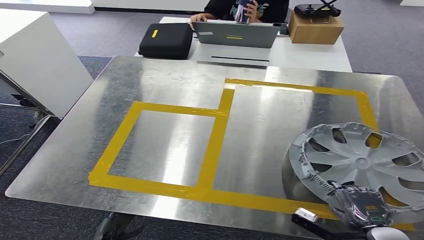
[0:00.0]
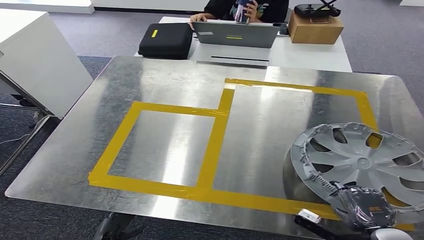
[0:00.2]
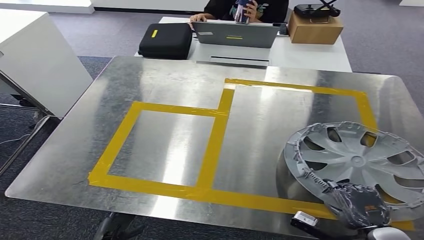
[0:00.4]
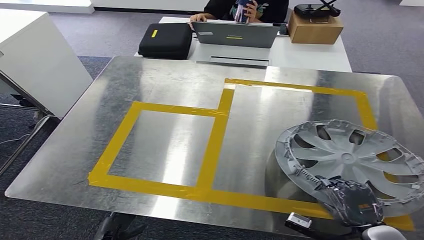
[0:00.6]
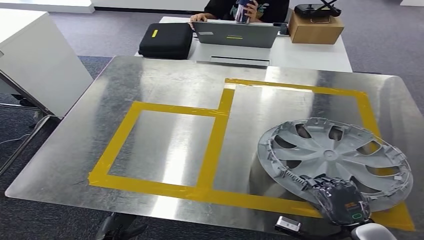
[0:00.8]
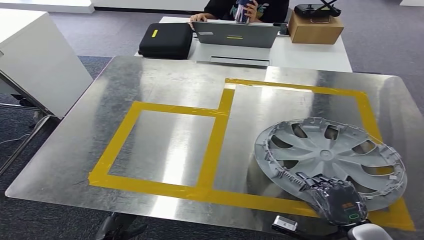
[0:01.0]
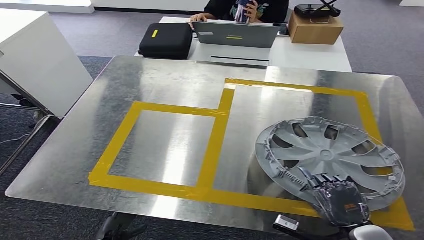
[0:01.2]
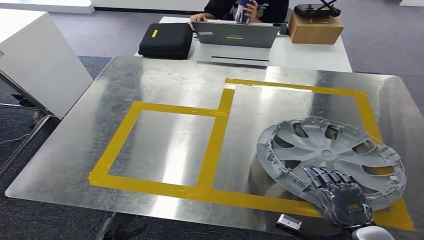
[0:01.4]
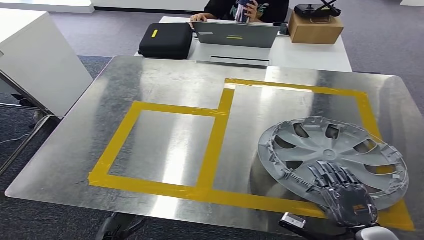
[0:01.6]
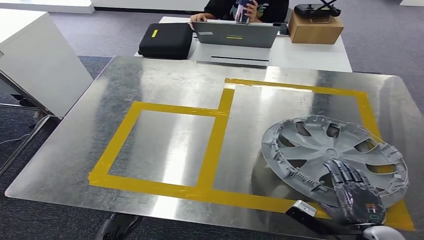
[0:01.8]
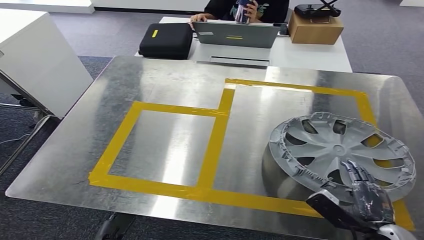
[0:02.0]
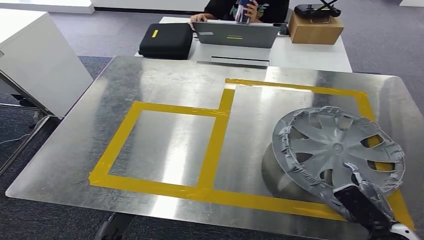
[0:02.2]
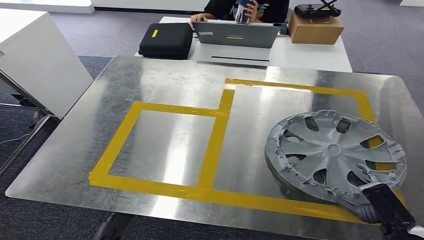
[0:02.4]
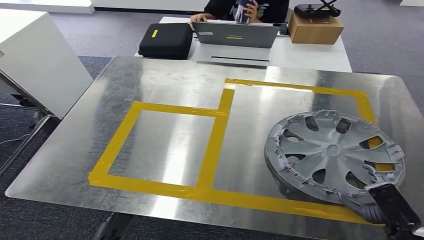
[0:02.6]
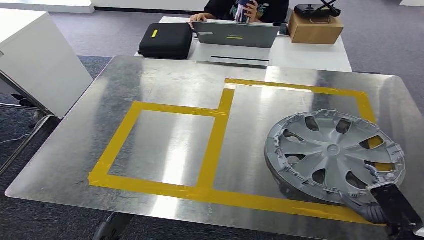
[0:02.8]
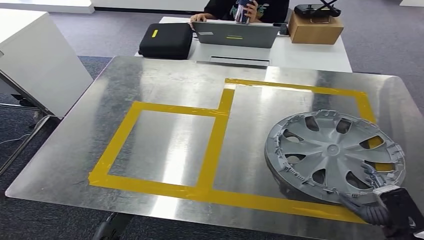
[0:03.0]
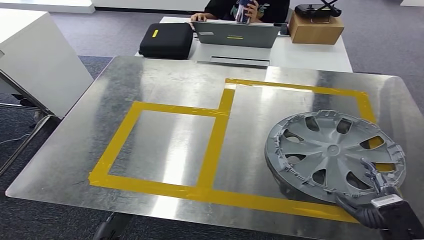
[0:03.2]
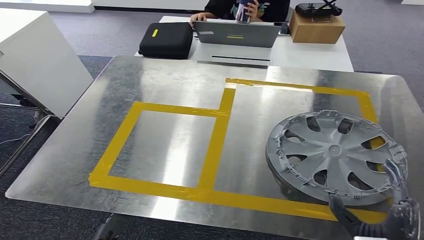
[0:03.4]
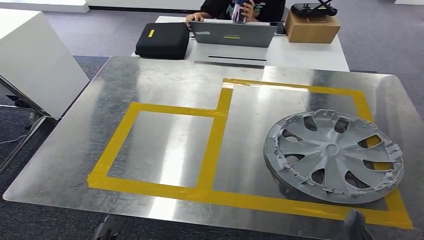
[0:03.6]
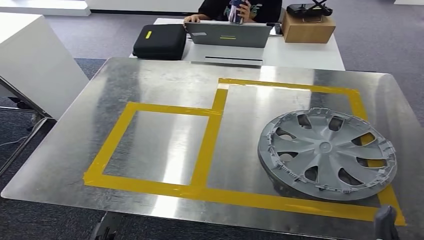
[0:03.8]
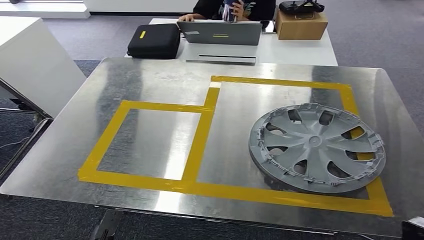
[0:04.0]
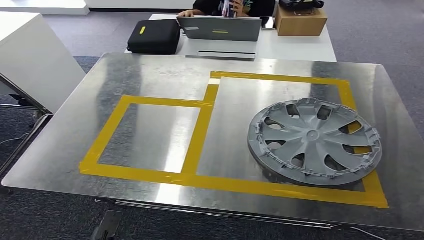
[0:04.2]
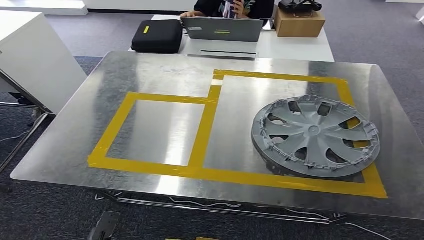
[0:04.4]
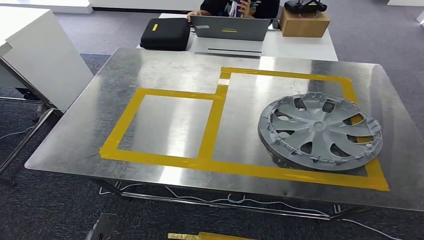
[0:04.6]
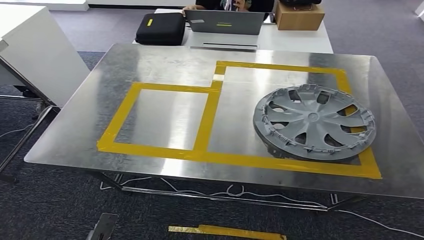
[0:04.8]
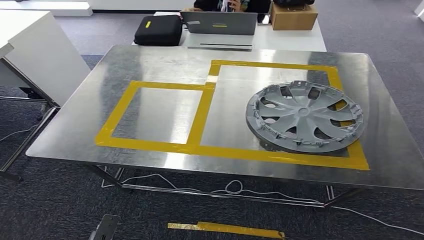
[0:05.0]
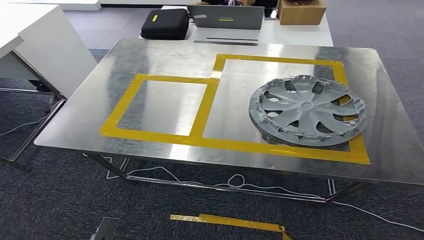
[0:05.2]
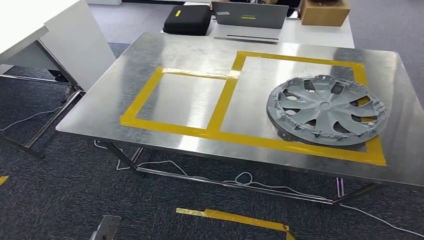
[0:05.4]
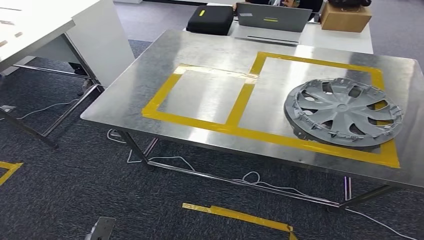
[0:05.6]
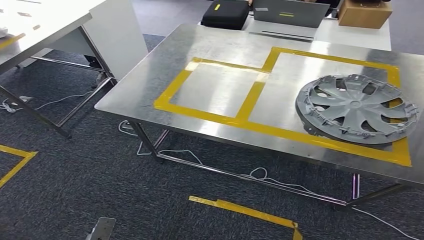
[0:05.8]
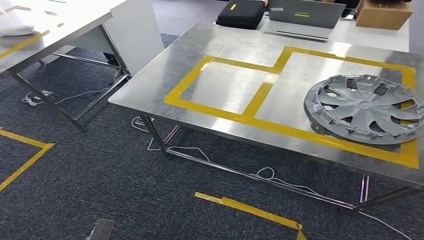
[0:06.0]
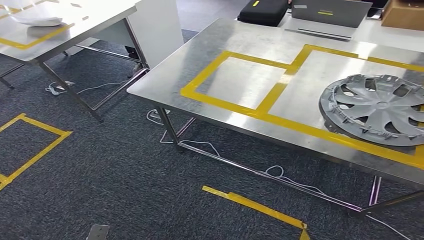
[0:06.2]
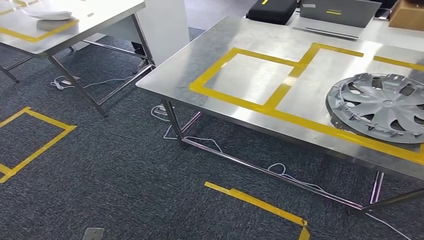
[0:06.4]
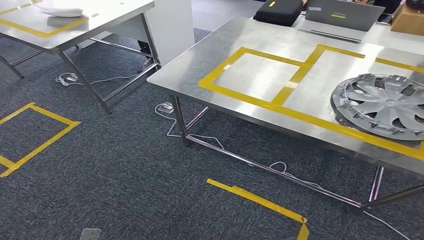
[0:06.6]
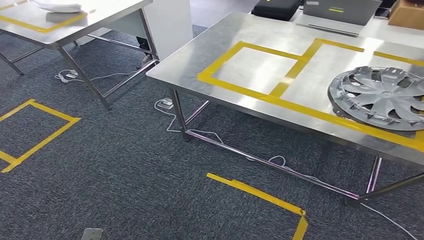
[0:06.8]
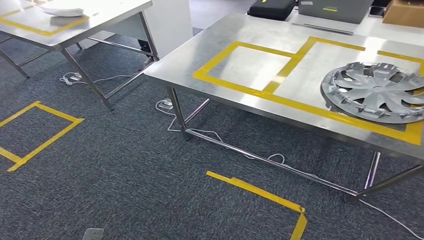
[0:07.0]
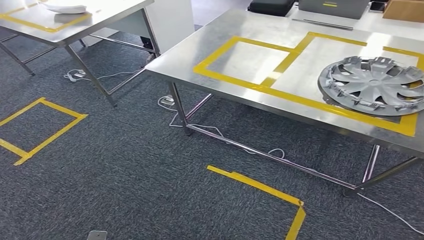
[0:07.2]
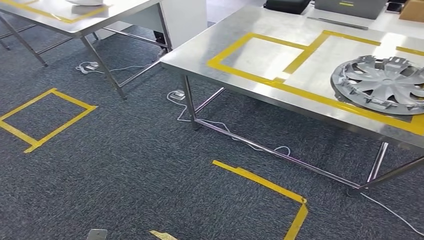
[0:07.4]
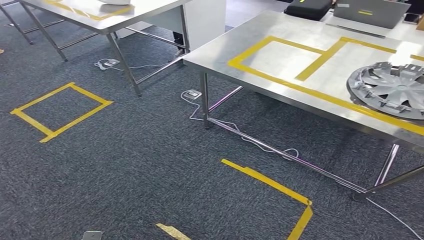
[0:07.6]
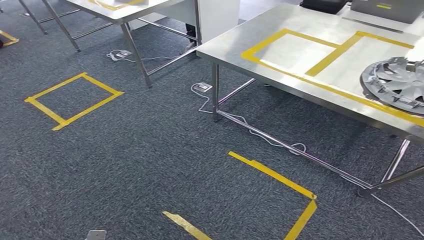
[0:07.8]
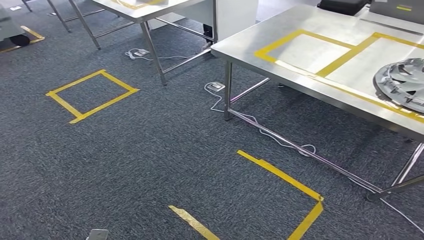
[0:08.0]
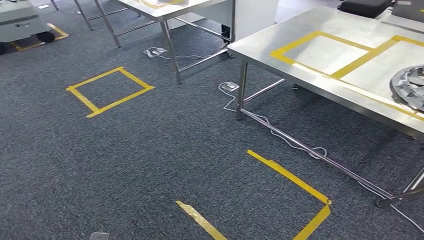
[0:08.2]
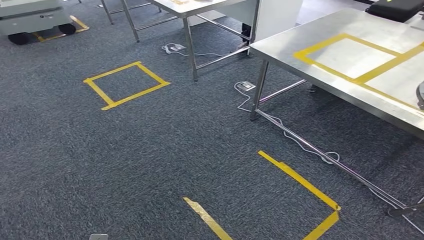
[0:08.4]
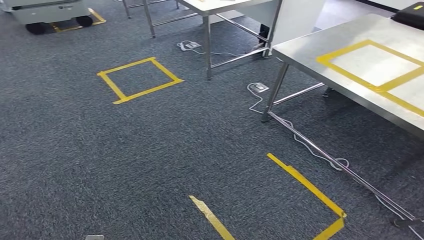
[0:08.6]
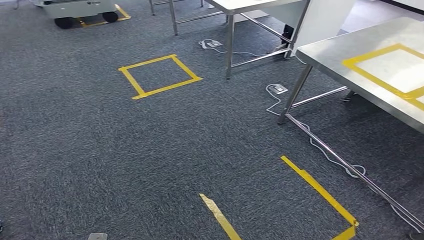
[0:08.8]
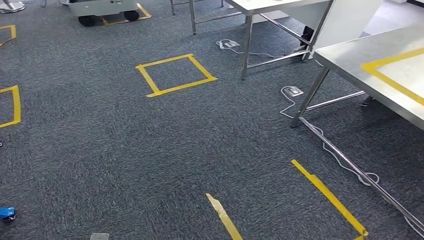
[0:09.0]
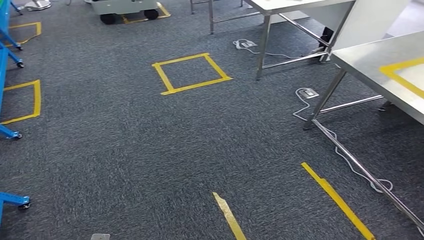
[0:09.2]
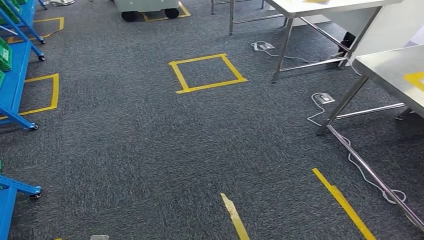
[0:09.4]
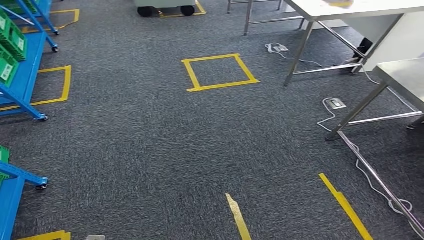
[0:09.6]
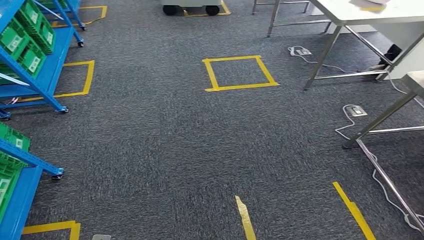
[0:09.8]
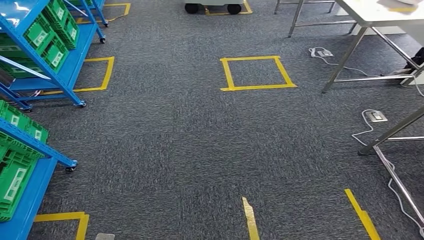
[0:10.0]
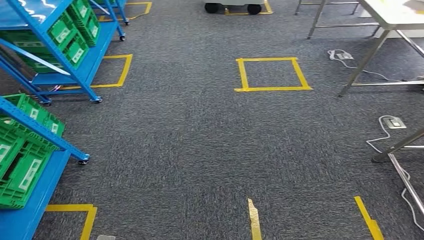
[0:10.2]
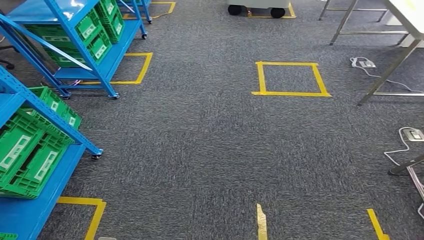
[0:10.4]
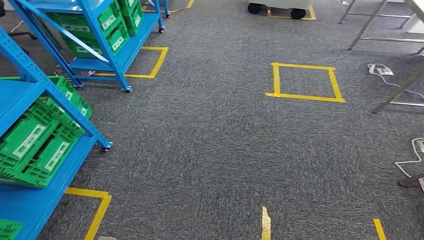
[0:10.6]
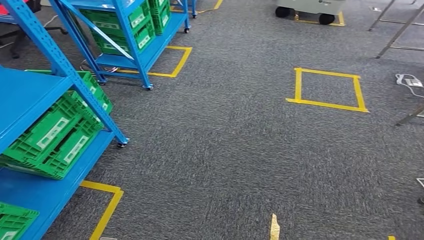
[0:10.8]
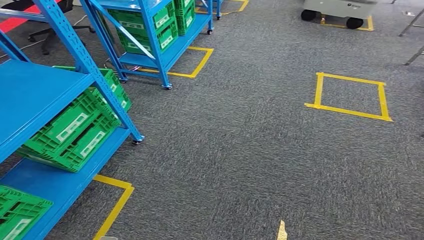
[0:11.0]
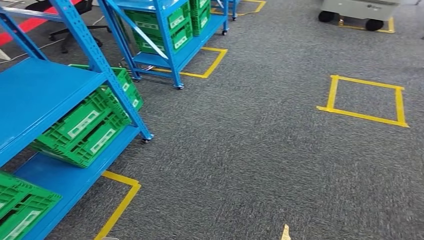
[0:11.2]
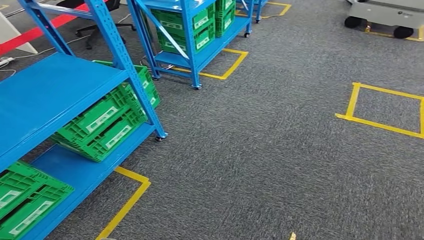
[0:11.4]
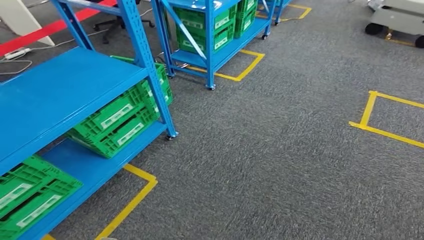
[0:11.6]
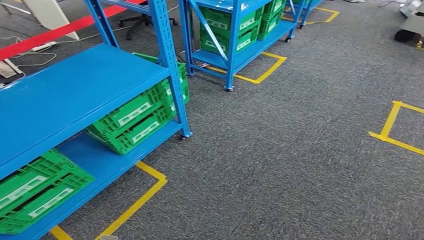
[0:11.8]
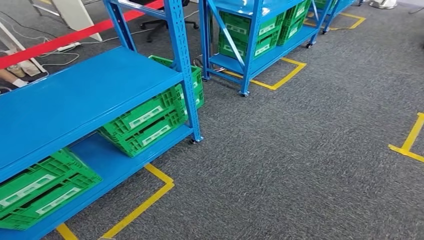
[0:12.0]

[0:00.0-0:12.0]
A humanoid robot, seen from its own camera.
Step, 0:00.0 to 0:05.8: Insert the small parts into the corresponding holes on the workbench.
0:01.6 to 0:03.0: The right hand heads to the right, covering about 5 cm.

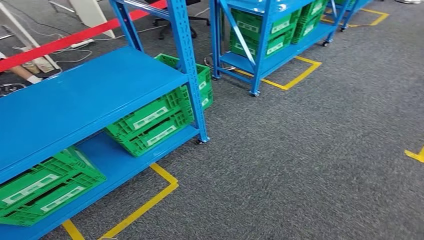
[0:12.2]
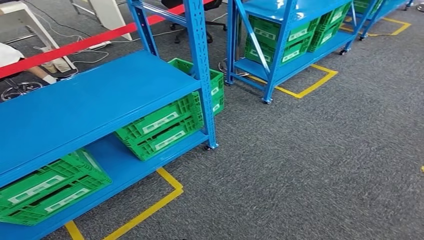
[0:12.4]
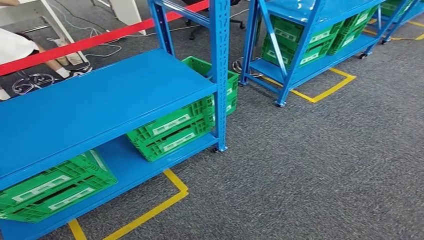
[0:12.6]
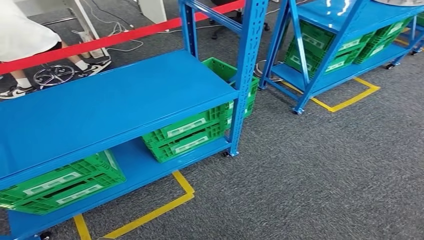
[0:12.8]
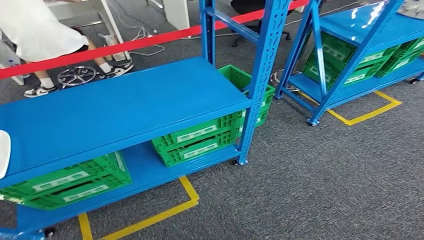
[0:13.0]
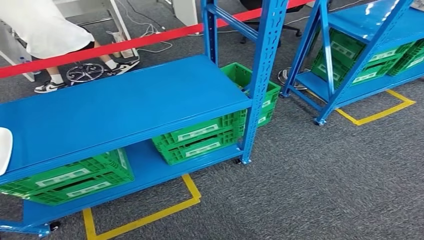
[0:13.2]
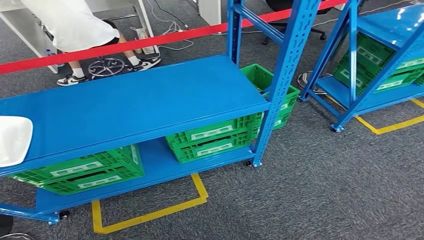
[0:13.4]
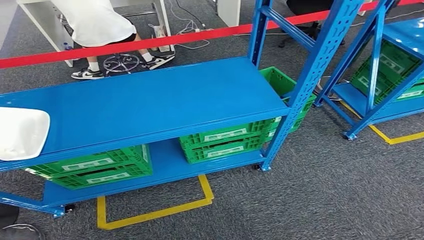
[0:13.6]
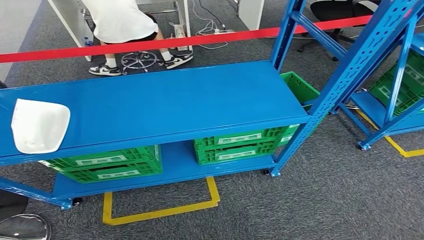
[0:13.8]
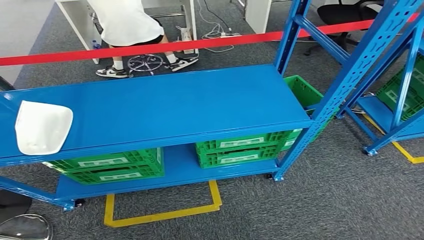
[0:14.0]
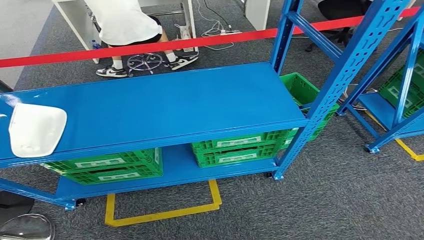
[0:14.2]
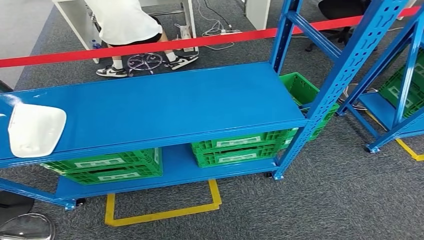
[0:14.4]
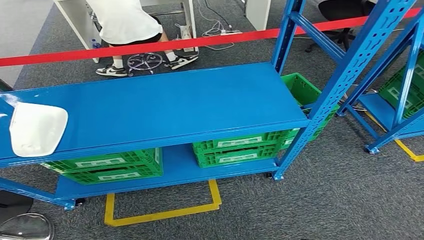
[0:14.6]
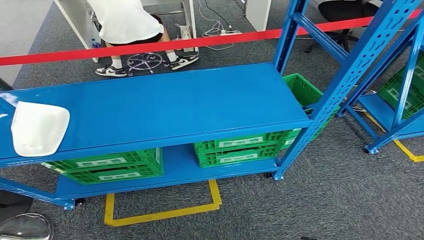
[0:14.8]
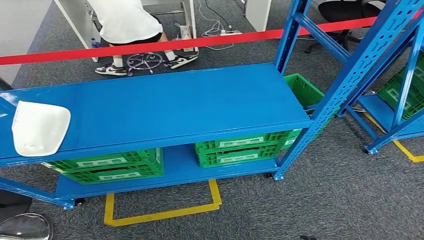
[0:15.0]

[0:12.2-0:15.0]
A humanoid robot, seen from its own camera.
Step, 0:12.2 to 0:15.0: Move to the initial position of the workbench.
